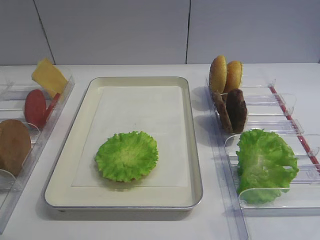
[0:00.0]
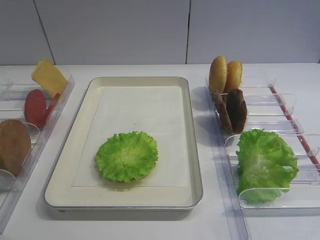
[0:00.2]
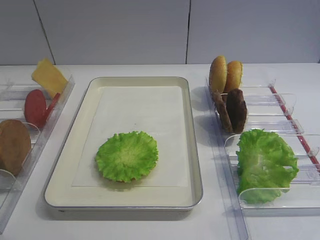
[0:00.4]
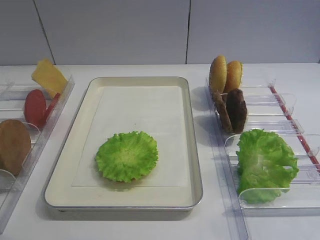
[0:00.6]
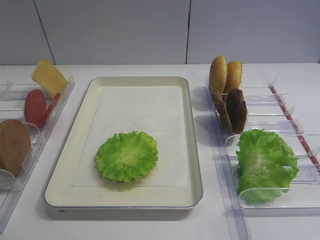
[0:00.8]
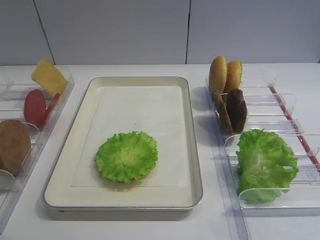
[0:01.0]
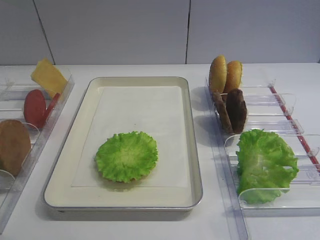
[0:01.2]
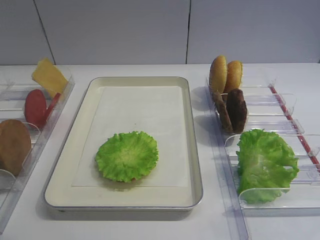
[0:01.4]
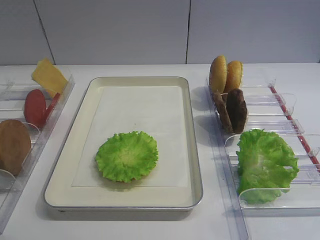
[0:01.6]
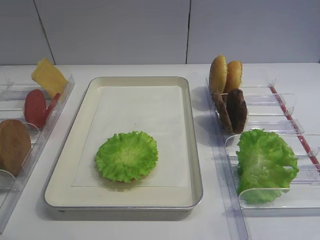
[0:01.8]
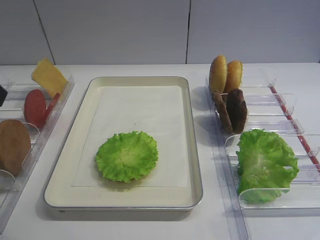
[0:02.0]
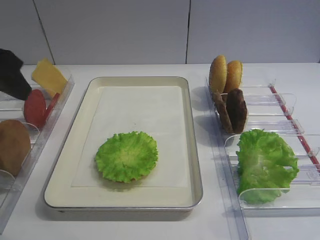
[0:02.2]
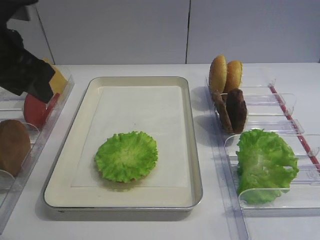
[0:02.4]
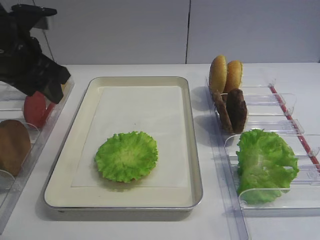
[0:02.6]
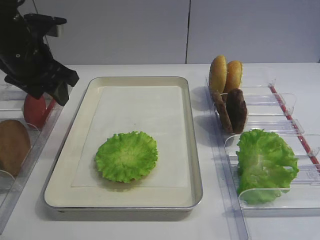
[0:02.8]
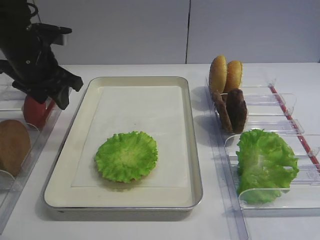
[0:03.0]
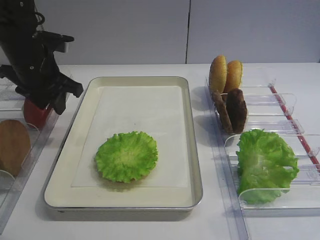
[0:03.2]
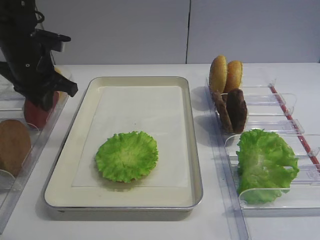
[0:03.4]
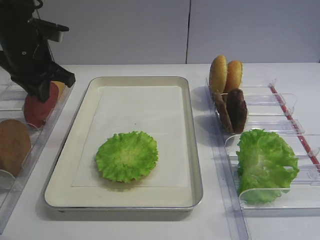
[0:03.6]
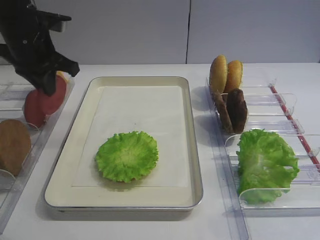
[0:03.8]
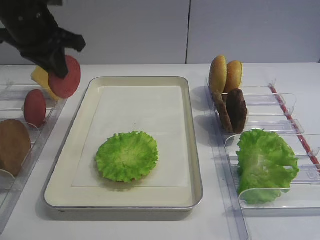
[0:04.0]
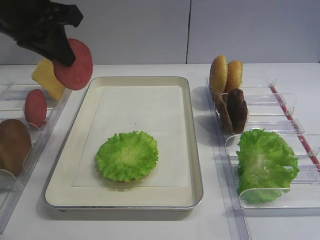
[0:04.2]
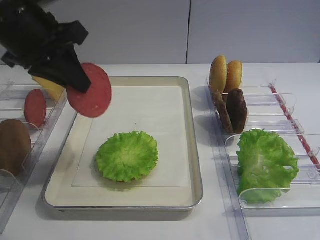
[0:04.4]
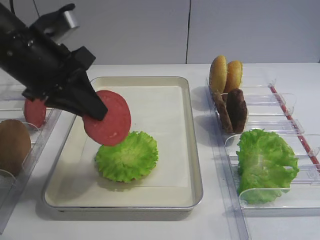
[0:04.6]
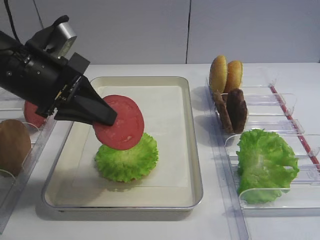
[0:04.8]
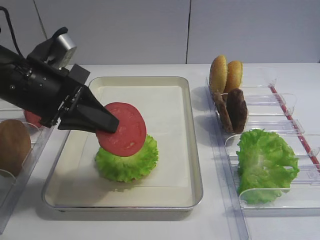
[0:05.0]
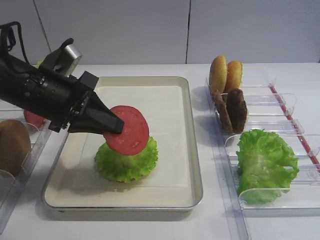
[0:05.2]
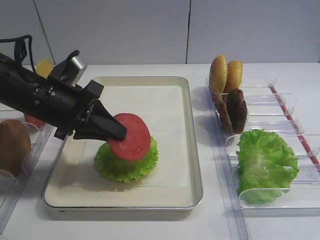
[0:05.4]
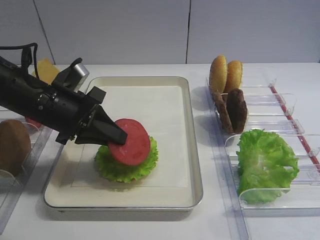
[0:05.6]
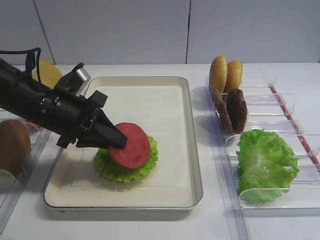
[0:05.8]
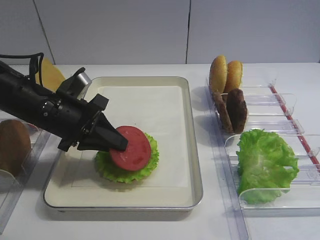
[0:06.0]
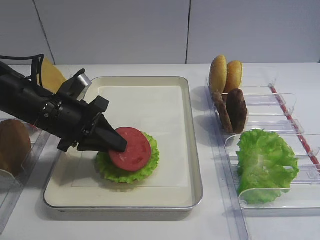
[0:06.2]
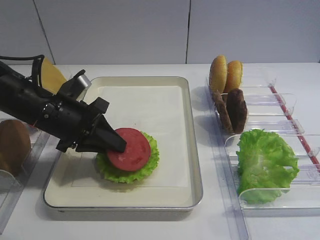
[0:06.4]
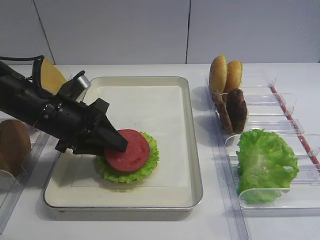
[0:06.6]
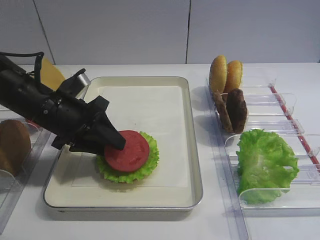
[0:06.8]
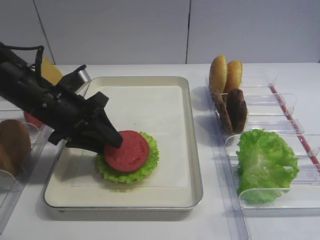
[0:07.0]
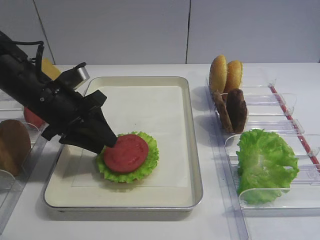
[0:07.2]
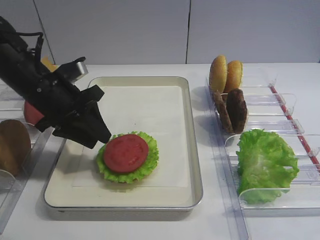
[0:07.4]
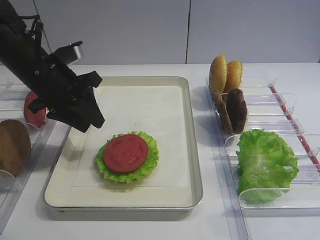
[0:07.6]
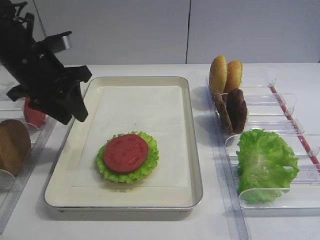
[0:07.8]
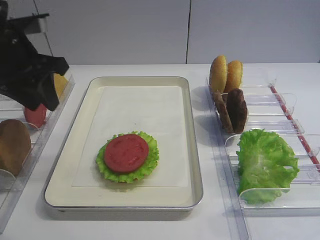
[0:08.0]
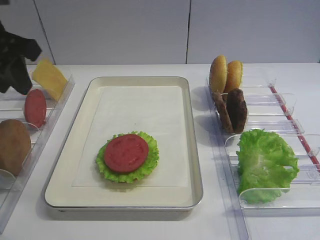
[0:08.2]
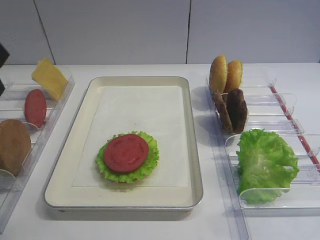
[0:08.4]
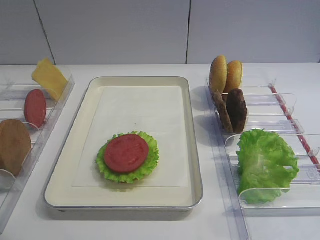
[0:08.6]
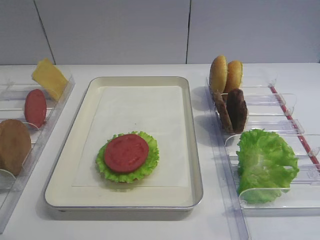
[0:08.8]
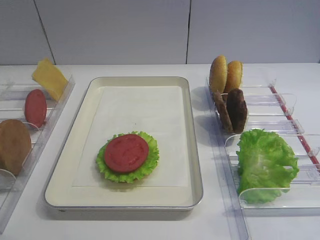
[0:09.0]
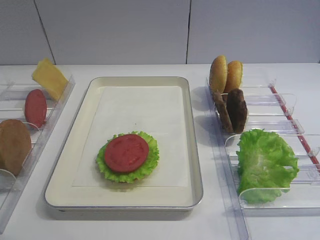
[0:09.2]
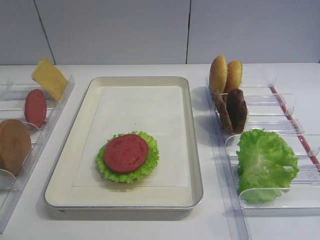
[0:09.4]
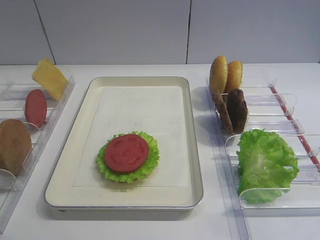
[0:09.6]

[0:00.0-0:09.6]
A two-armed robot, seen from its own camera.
Step, 0:00.0 to 0:03.6: Pick up the tomato slice with the left gripper.
Step, 0:04.0 to 0:07.2: Place the tomato slice on the lettuce leaf with the left gripper.
0:01.6 to 0:03.2: The left gripper goes roughly 30 cm forward, and closes up.
0:03.2 to 0:04.8: The left gripper is displaced backward by approximately 10 cm, goes upward and returns, roughly 10 cm each way, and closes its fingers.
0:04.8 to 0:06.4: The left gripper heads downward, covering about 10 cm.
0:06.4 to 0:08.0: The left gripper is displaced upward and to the left by some 15 cm, and opens up.
0:08.0 to 0:09.6: The left gripper goes approximately 30 cm backward.

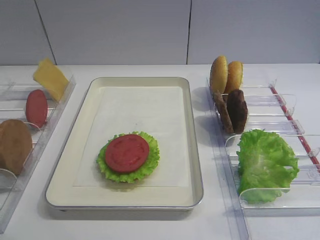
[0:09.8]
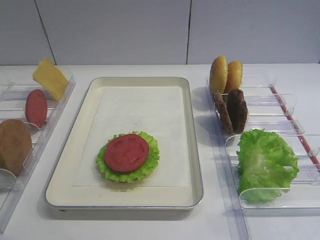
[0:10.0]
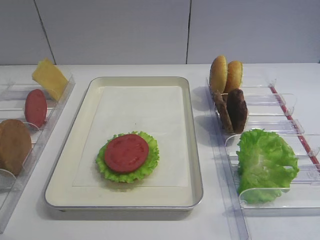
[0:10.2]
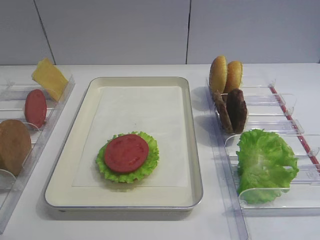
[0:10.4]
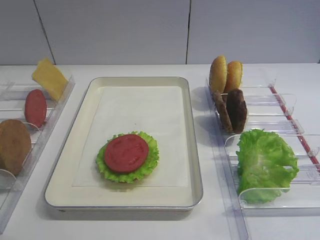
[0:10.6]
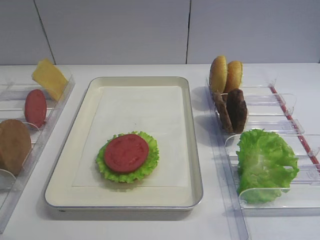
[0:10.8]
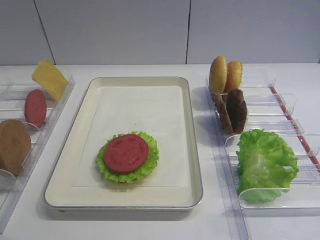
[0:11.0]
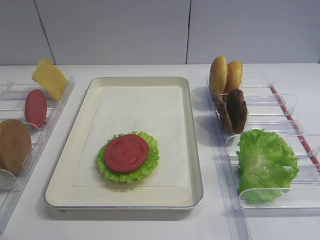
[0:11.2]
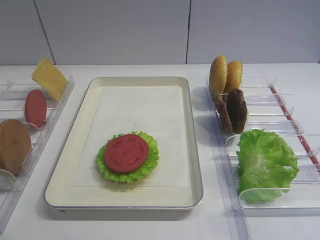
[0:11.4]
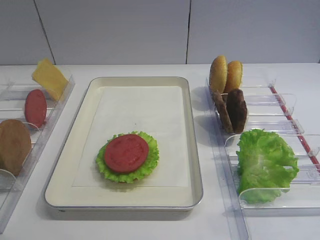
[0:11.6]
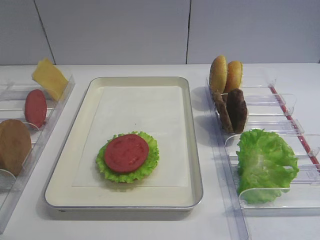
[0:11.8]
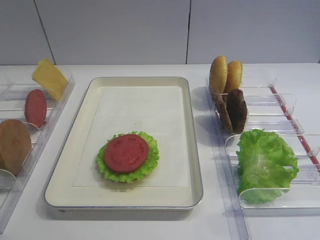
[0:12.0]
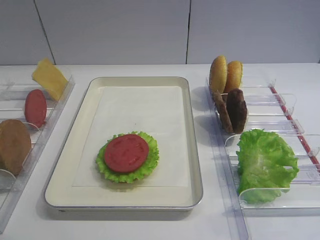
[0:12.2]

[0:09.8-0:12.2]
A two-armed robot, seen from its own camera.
0:09.8 to 0:12.2: Both grippers stay put.

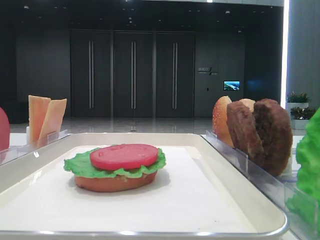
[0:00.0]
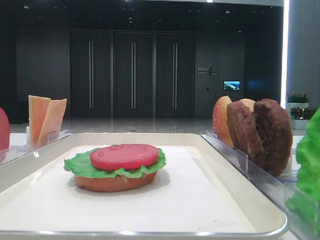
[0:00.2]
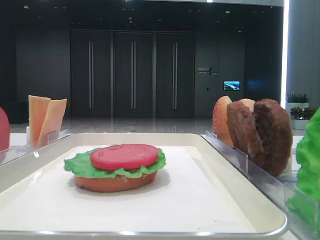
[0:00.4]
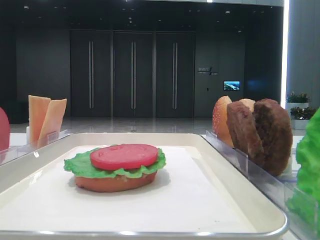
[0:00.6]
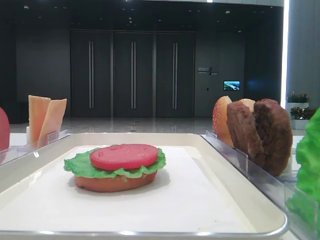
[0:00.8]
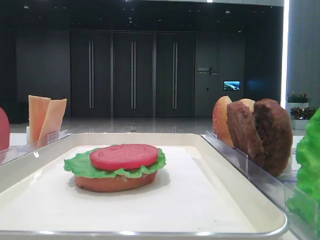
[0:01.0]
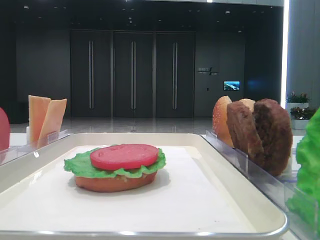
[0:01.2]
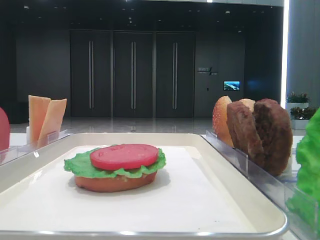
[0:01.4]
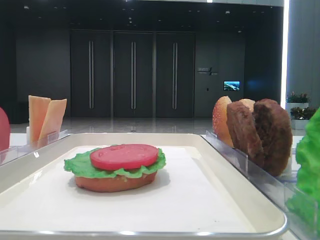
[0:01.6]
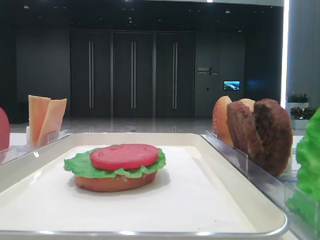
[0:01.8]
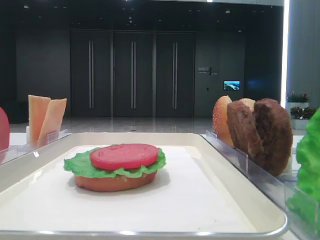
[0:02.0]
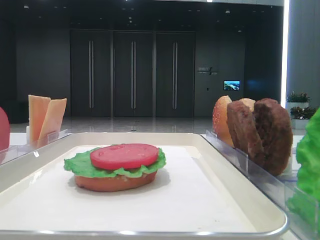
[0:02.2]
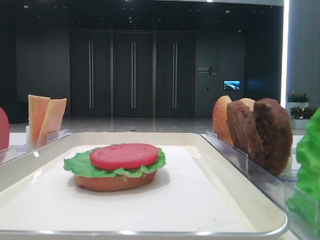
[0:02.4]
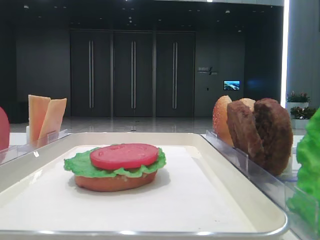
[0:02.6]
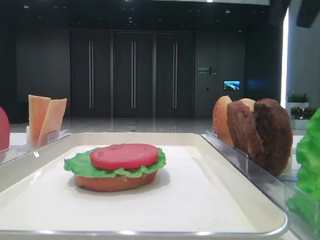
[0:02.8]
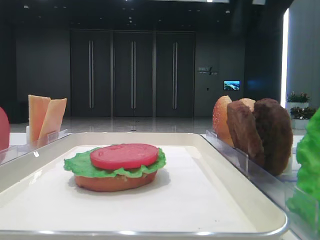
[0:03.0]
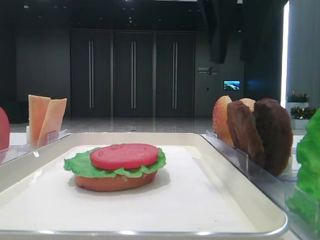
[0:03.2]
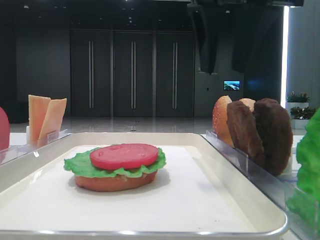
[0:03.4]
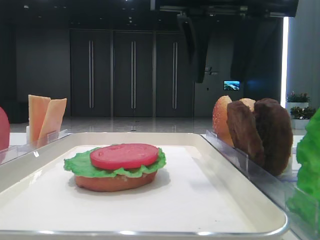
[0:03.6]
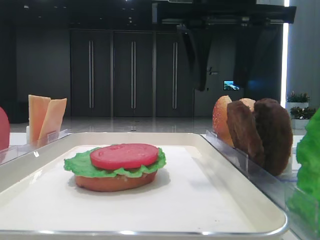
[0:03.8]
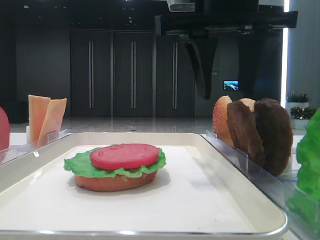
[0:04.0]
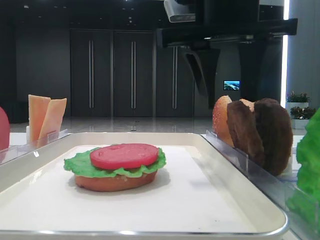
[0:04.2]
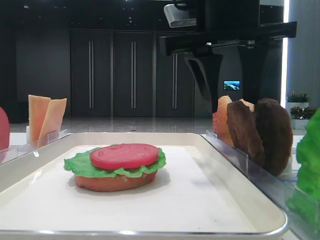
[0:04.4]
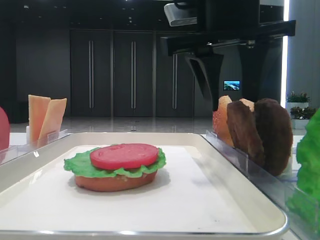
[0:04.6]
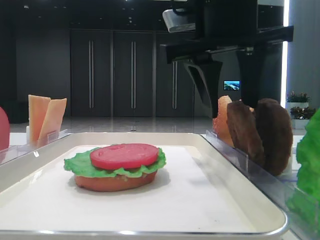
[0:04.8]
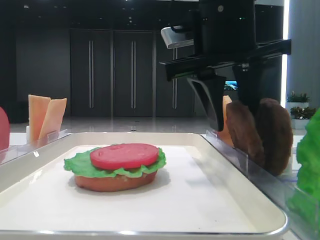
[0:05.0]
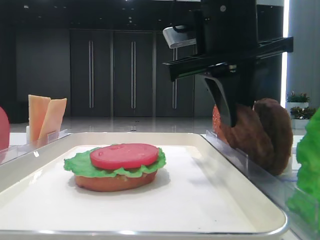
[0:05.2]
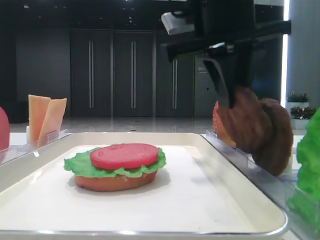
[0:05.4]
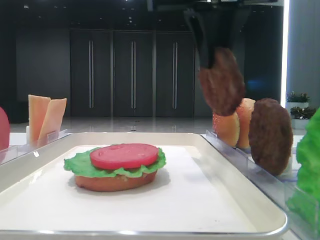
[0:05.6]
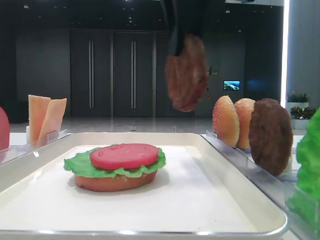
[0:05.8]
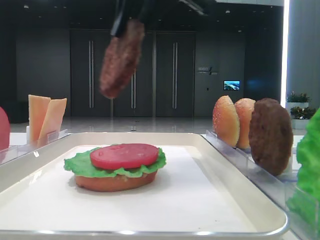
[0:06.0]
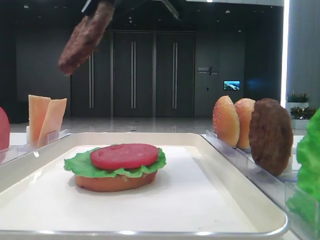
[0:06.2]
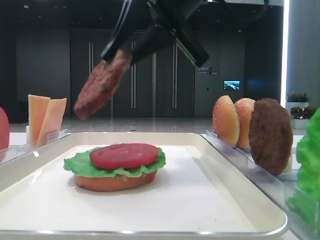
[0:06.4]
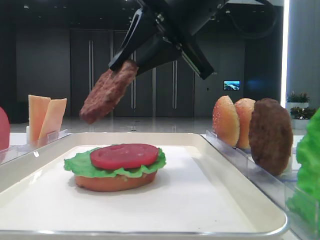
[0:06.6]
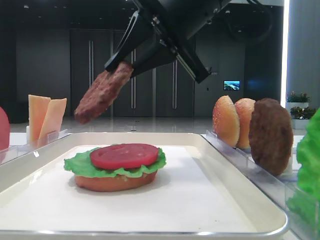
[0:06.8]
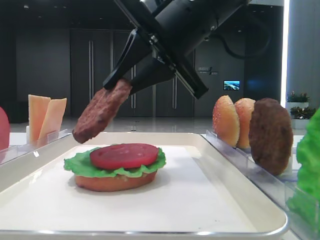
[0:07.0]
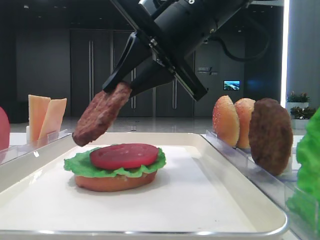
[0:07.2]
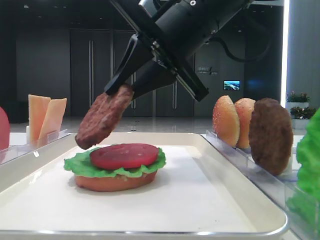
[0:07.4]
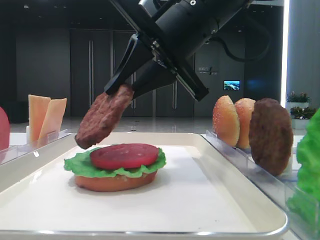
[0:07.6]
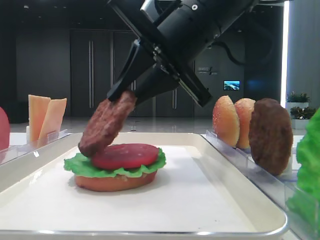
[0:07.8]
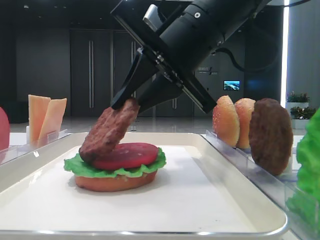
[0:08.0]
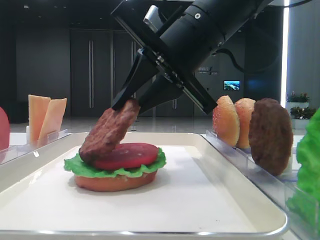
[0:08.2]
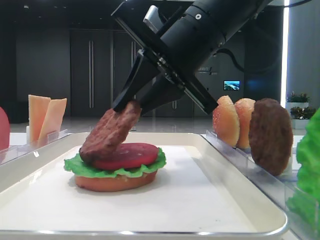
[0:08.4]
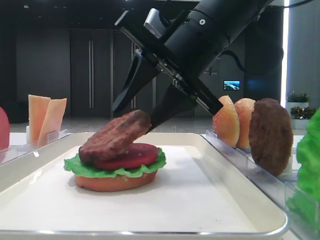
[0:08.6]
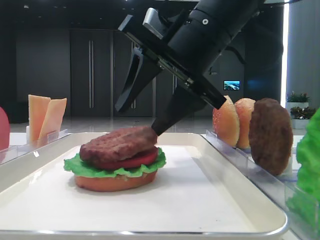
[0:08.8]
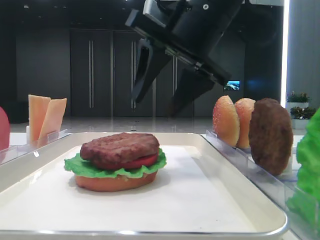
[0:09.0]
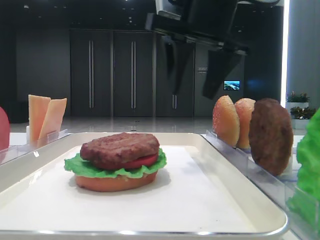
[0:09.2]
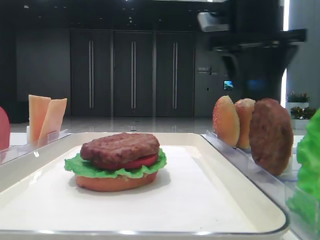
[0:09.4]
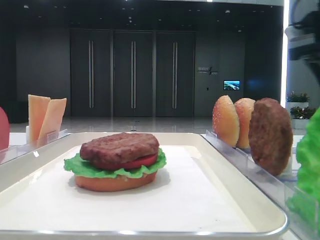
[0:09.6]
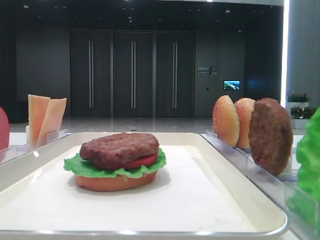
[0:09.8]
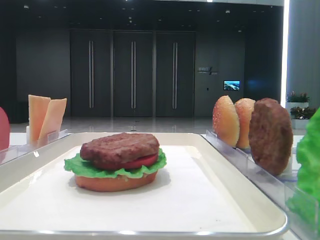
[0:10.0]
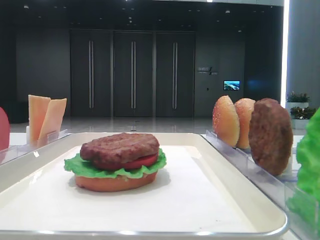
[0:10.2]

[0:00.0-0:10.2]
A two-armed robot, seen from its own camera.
Step, 0:00.0 to 0:05.0: Grab the patty with the right hand.
Step, 0:05.2 to 0:08.8: Place the patty on the tomato slice with the right hand.
0:01.4 to 0:03.0: The right gripper moves forward and to the left, roughly 30 cm.
0:03.0 to 0:04.4: The right gripper goes approximately 10 cm downward, and opens up.
0:04.4 to 0:05.8: The right gripper is displaced upward by roughly 5 cm, and closes up.
0:05.8 to 0:07.2: The right gripper shifts some 10 cm downward.
0:07.2 to 0:08.8: The right gripper opens its fingers.
0:08.8 to 0:10.2: The right gripper heads to the right, covering some 30 cm.
